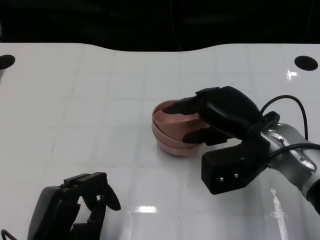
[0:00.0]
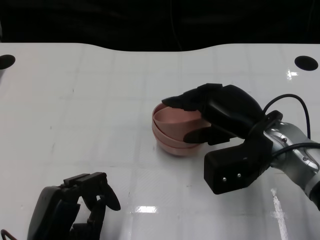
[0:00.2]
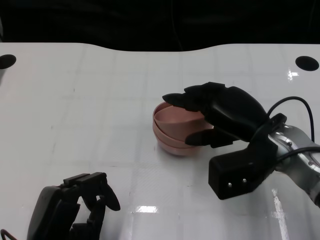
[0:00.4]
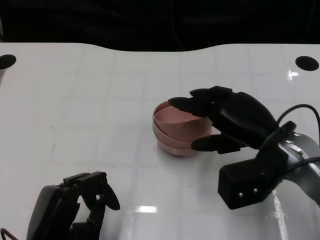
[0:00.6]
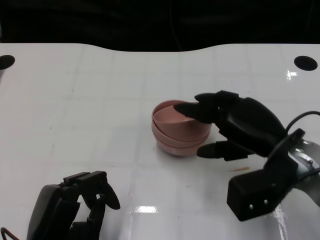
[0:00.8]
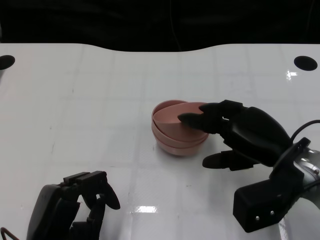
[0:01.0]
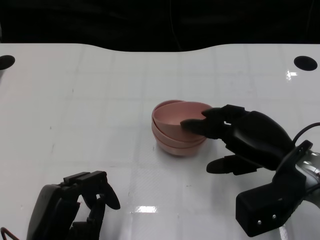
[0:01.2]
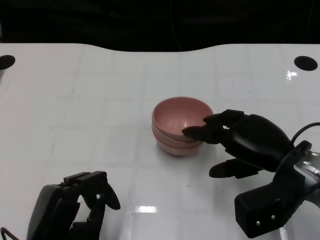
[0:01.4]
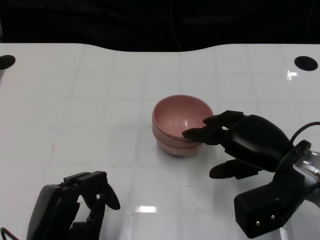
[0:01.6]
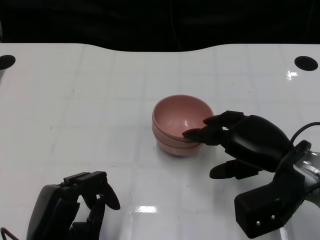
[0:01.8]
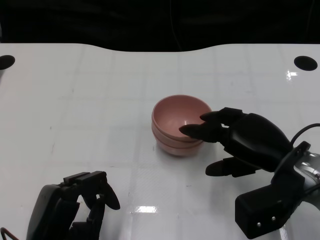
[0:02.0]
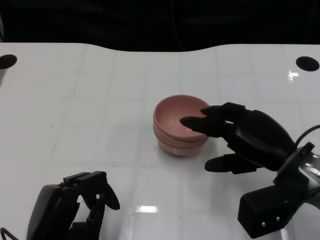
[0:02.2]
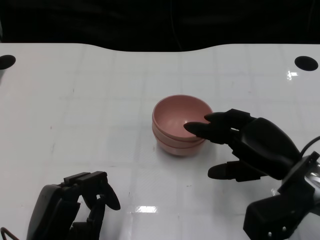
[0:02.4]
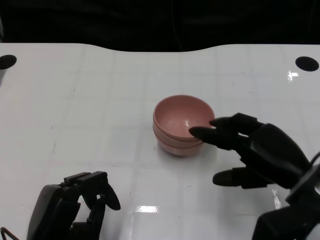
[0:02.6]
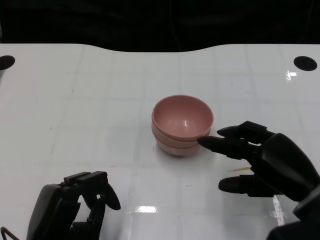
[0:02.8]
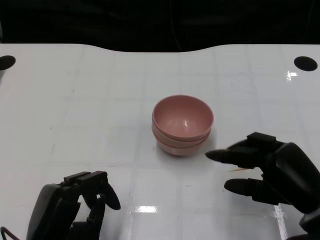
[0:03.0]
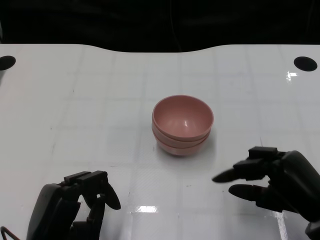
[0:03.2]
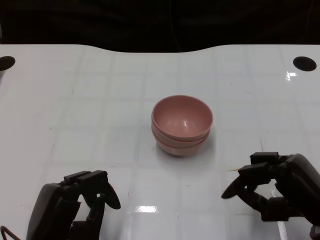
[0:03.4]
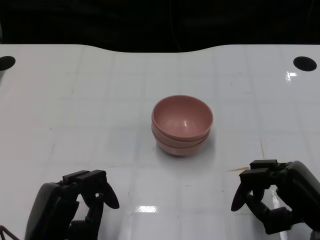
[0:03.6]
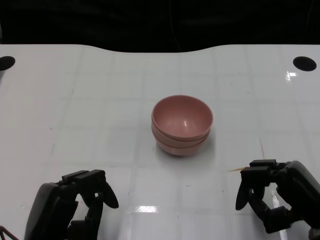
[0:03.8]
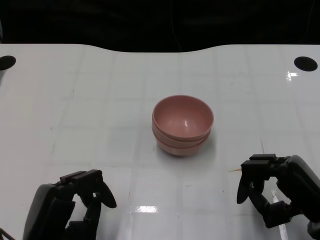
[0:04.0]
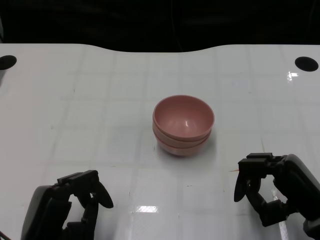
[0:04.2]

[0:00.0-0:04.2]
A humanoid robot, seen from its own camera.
Task of the whole recording: Pick up the bowl on one side of the table and place it on top of the middle bowl, then pick up the bowl on the other side of the table and place it on top of the middle bowls.
Step, 0:00.0 to 0:02.4: Place the bowl on the right onto the bowl in the middle with right gripper.
0:00.0 to 0:01.4: The right hand shifts by roughly 5 cm.
0:01.4 to 0:02.8: The right hand changes place by about 5 cm.
